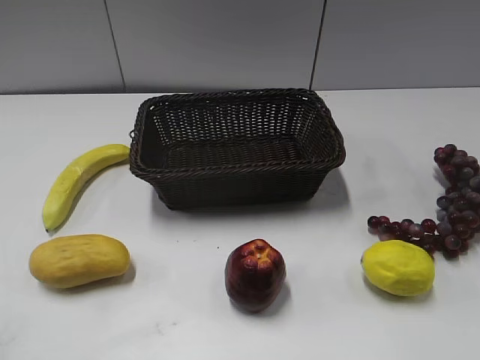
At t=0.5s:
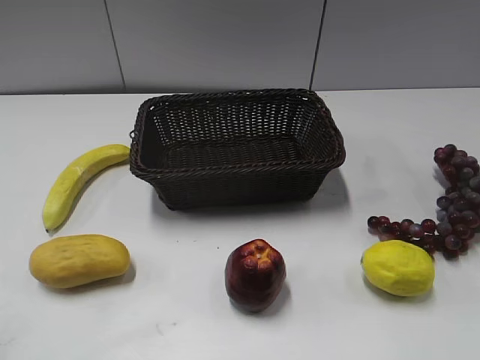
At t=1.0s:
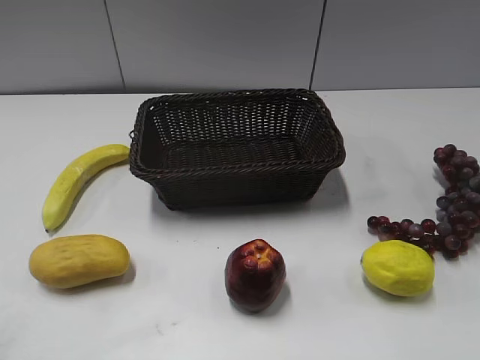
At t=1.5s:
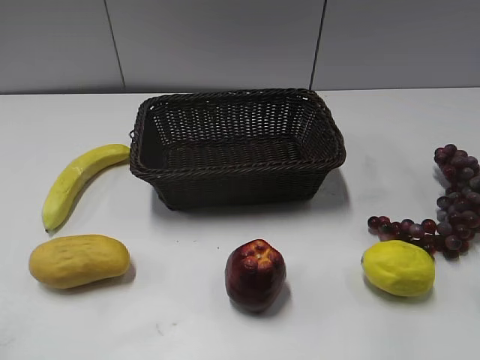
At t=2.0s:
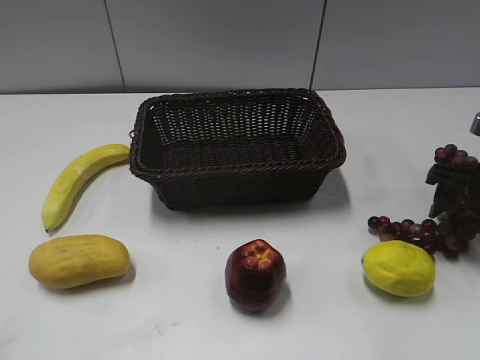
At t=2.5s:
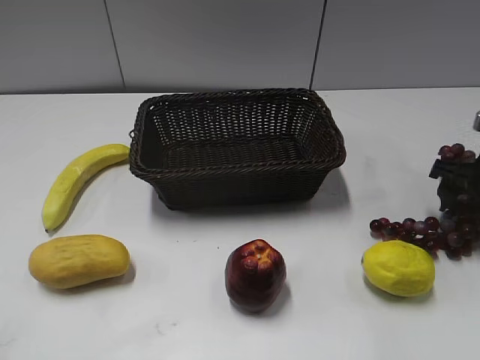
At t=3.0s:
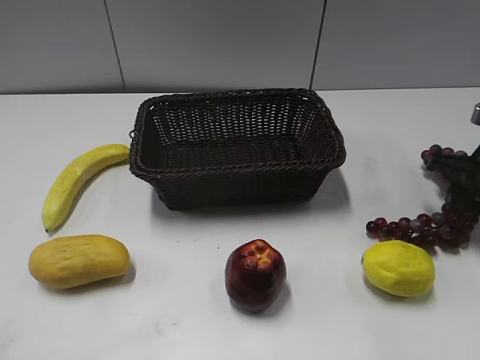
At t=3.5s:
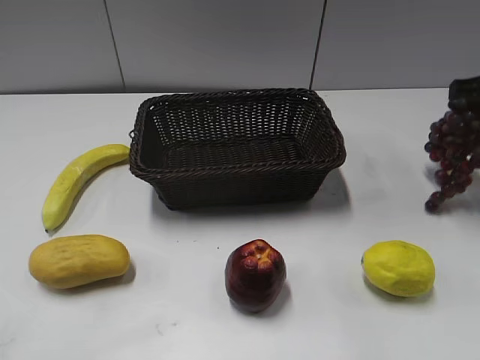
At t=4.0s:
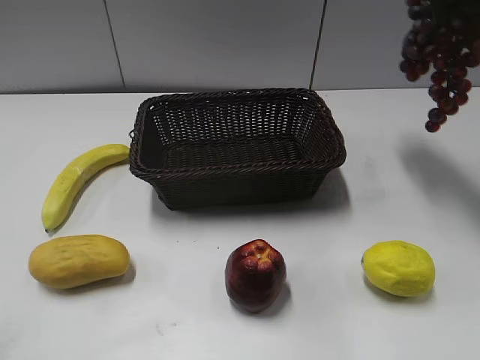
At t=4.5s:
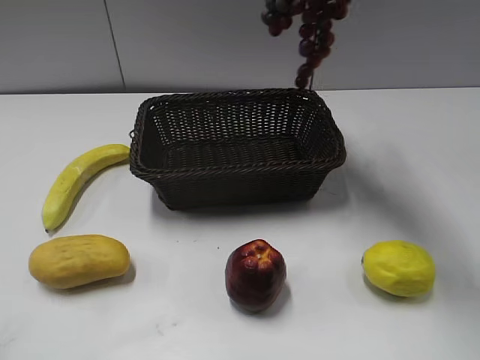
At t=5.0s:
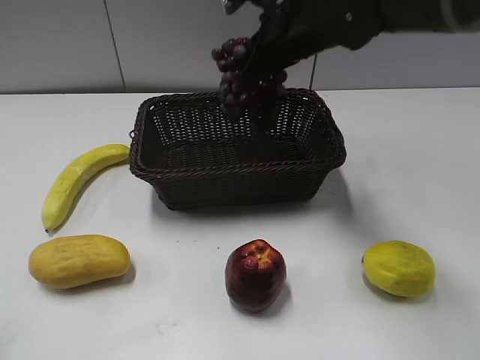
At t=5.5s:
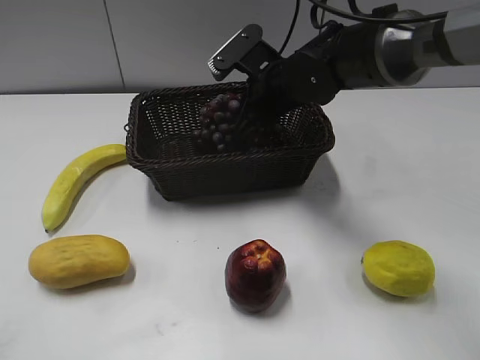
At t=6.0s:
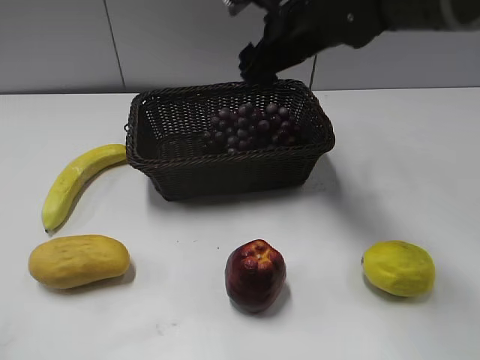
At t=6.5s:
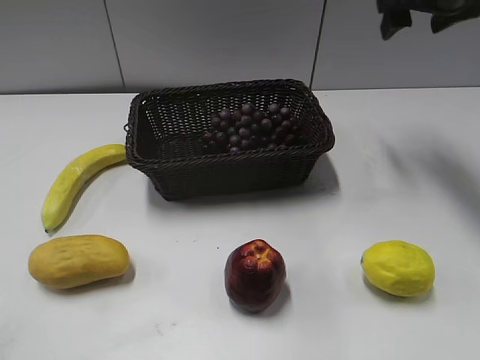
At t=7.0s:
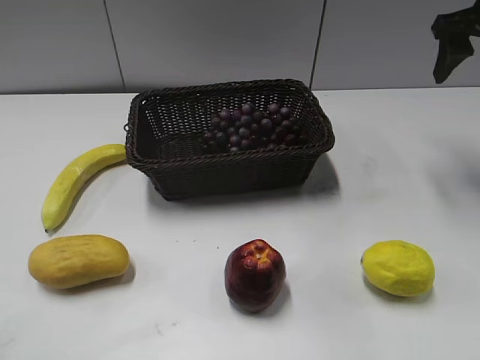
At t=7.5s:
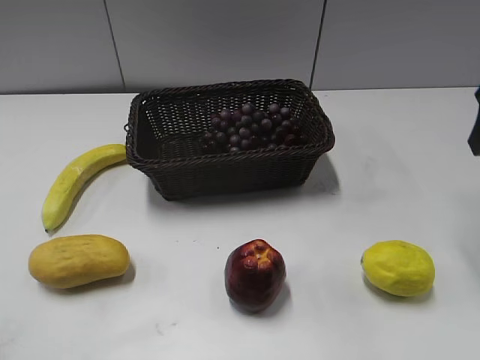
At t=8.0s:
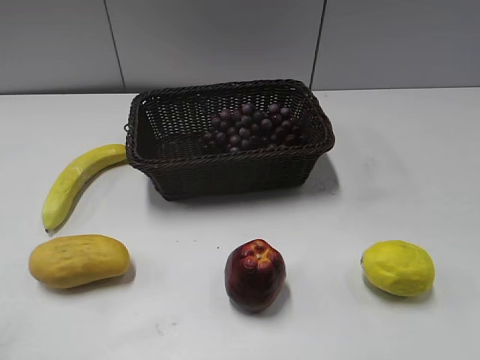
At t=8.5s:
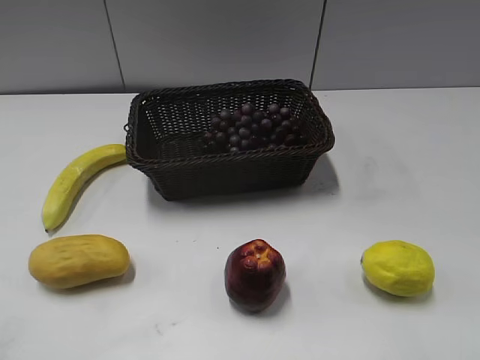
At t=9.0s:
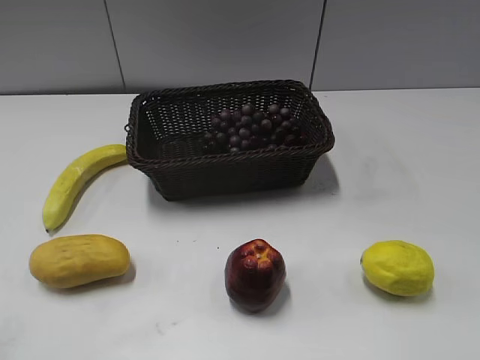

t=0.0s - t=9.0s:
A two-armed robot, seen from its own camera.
Step, t=2.0s - t=2.5s: Grasp the grape with right gripper.
Step, t=3.0s - t=5.5s: Place the grape in the basket with right gripper.
t=2.0s - t=4.5s: The right gripper heads upward and to the left, covering some 30 cm, and closes up.
t=4.5s - t=7.0s: The right gripper is displaced to the right by some 15 cm, and opens its fingers.
t=7.0s - t=9.0s: The right gripper travels backward by roughly 35 cm.

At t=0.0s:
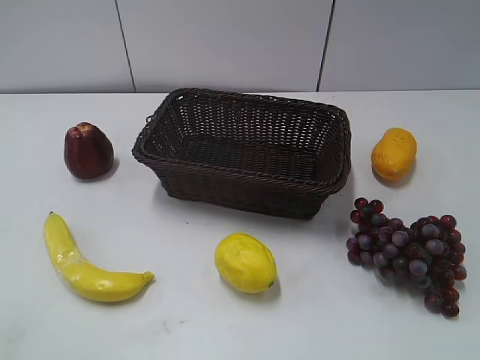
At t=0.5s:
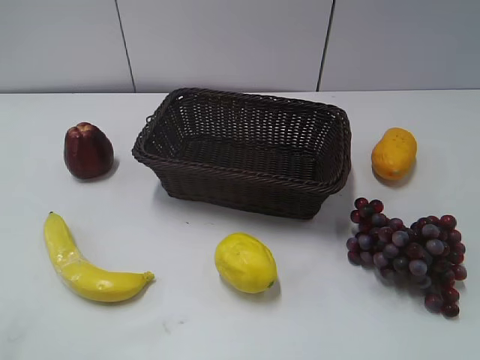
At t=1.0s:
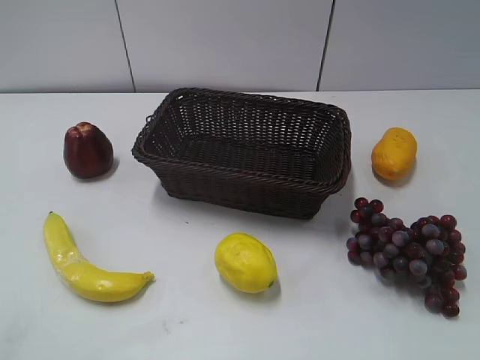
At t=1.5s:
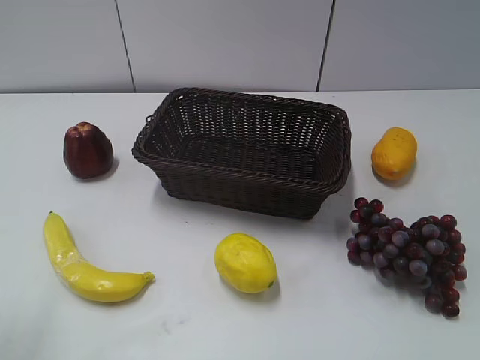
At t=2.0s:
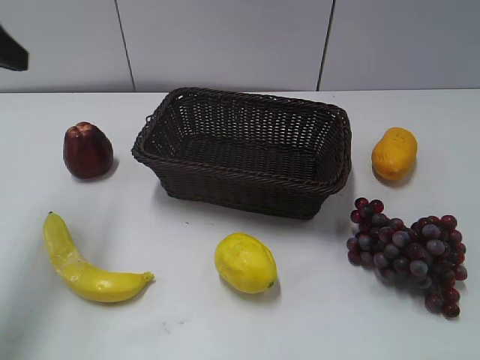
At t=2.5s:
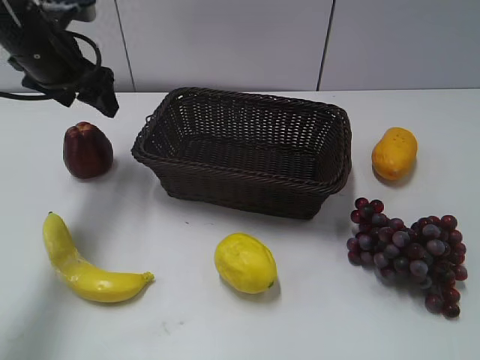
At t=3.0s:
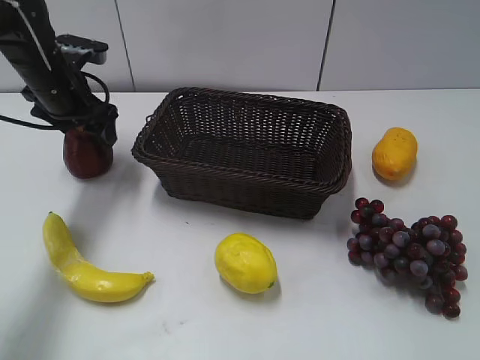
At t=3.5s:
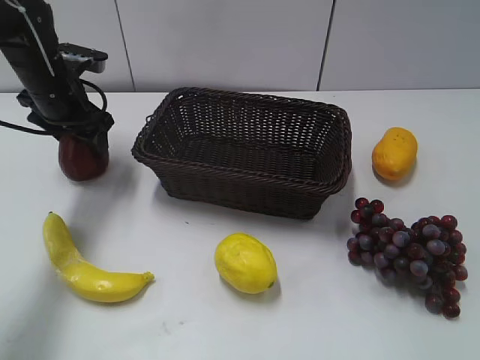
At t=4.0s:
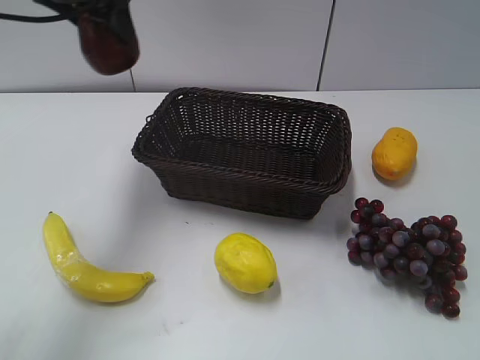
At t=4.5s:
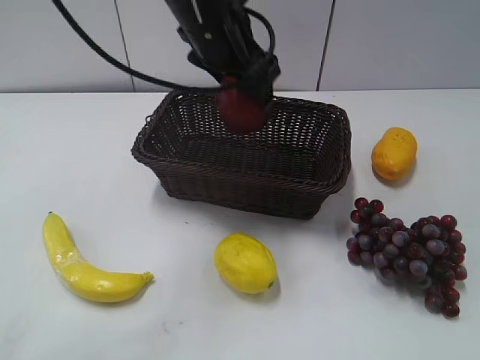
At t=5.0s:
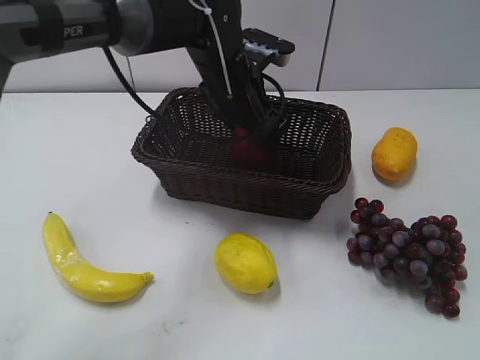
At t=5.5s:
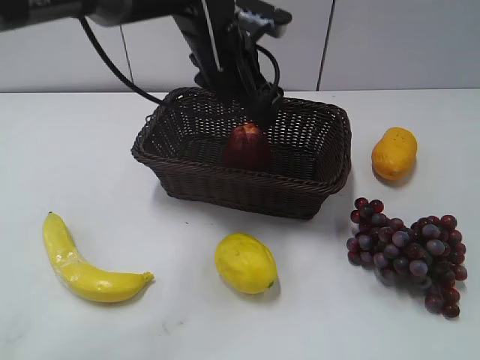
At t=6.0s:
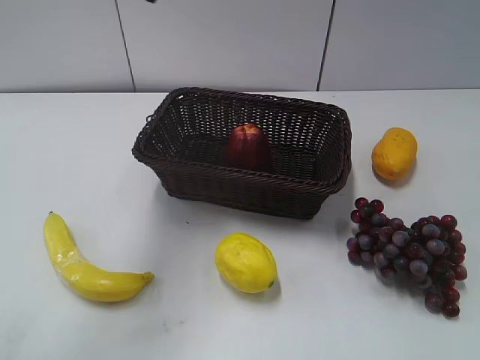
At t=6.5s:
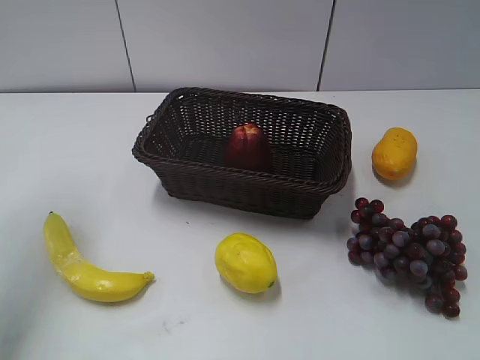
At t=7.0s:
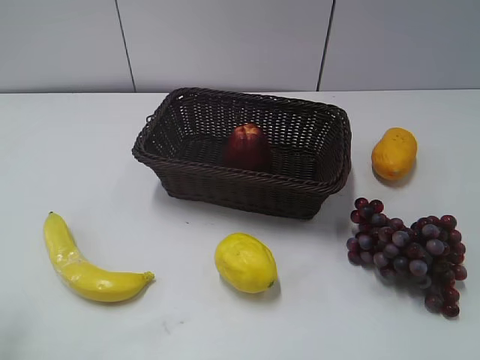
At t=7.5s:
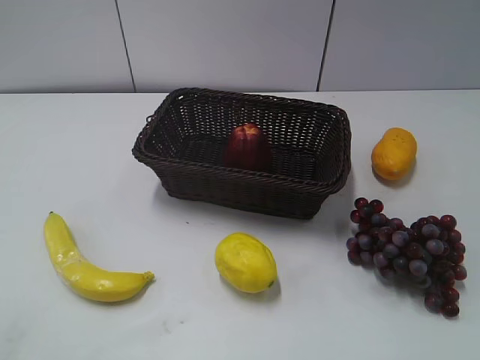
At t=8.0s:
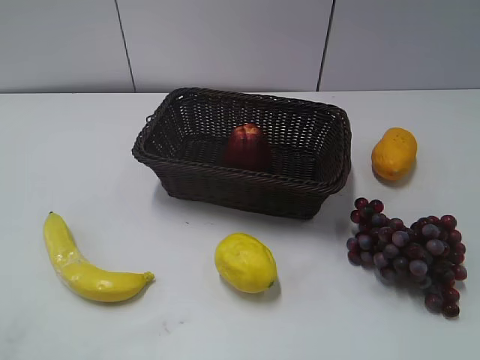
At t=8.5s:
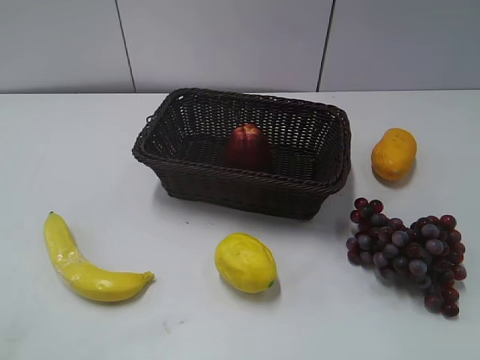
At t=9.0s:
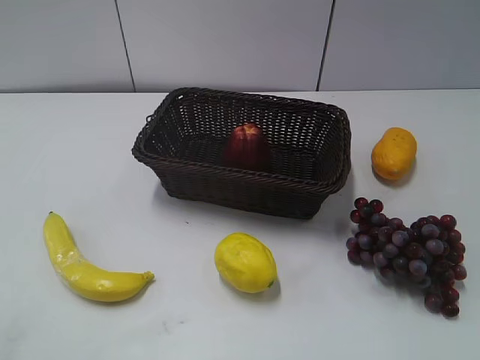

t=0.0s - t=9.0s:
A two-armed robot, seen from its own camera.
Step, t=2.0s - t=3.0s: Grasp the apple with left gripper.
Step, t=3.5s - t=5.0s: Place the apple in the basket with left gripper.
t=2.0s - t=4.5s: The left gripper goes approximately 25 cm to the right, and closes its fingers.
t=4.5s - t=7.0s: The left gripper travels to the left and backward by about 40 cm, and opens, then closes again.

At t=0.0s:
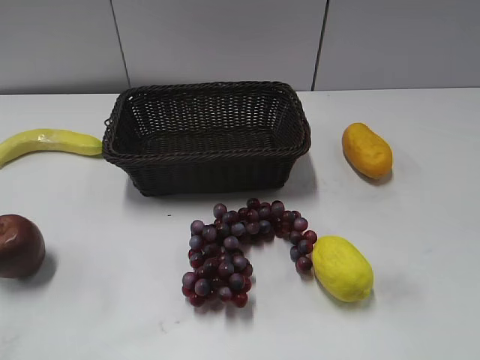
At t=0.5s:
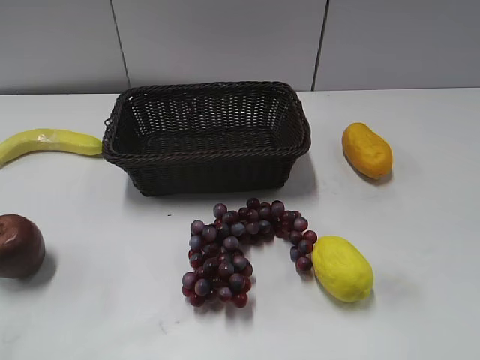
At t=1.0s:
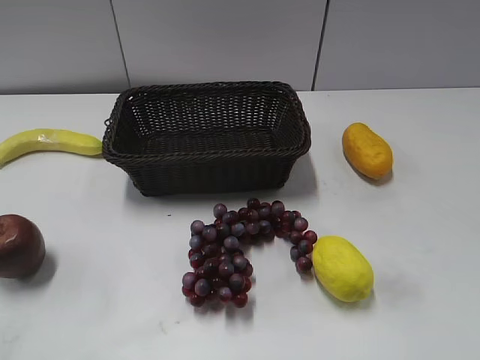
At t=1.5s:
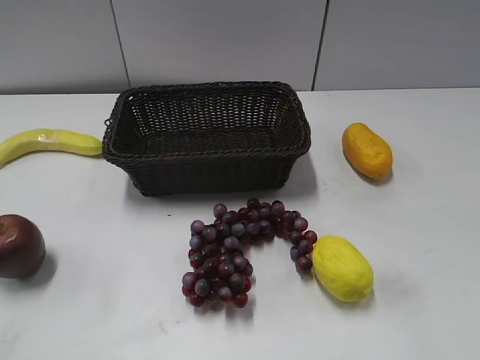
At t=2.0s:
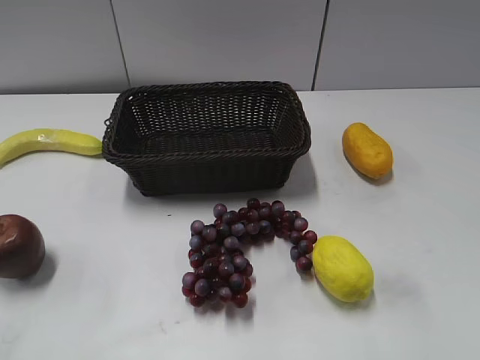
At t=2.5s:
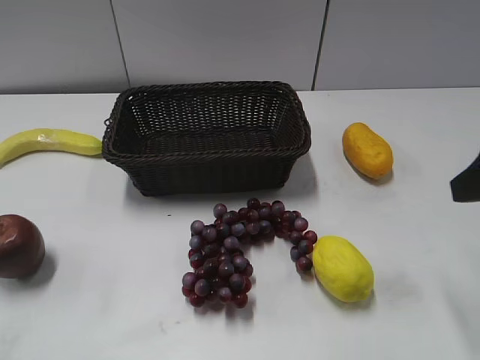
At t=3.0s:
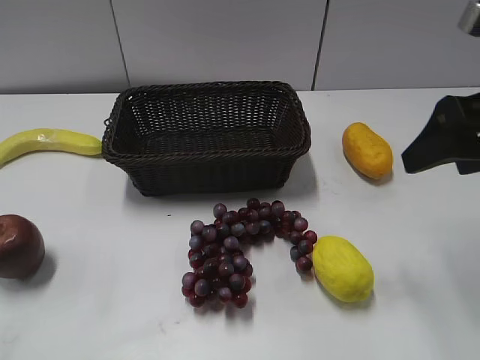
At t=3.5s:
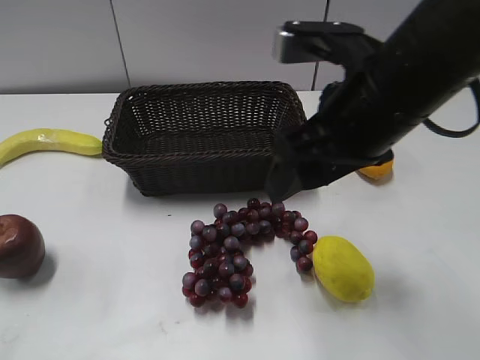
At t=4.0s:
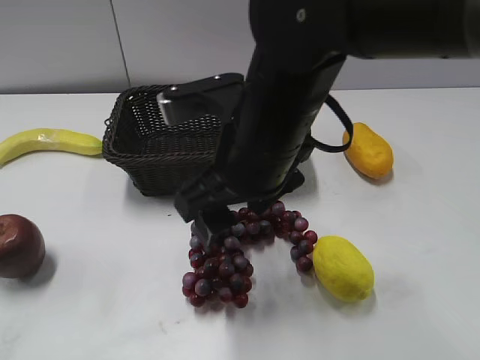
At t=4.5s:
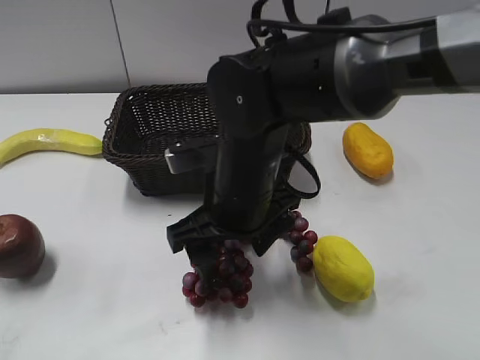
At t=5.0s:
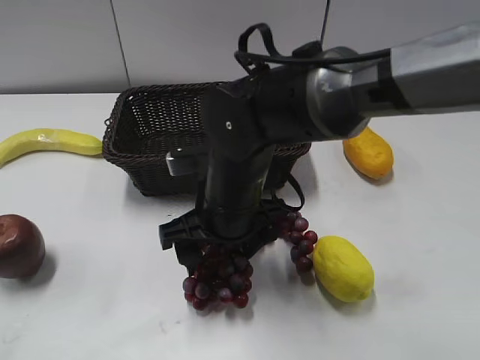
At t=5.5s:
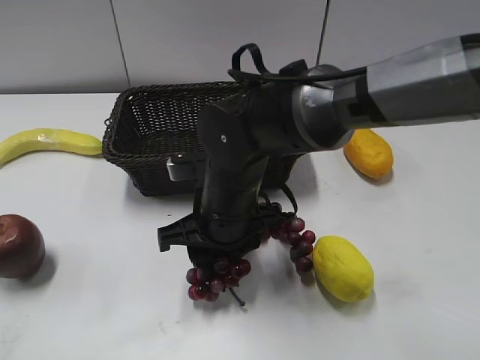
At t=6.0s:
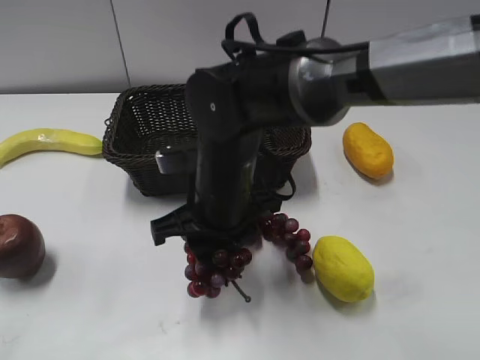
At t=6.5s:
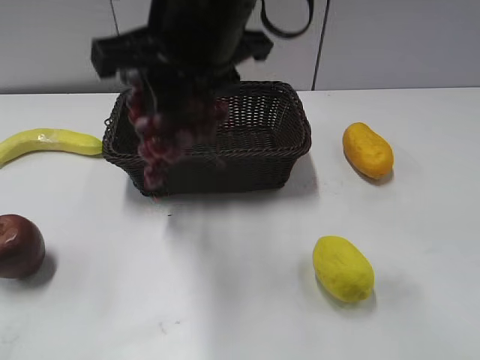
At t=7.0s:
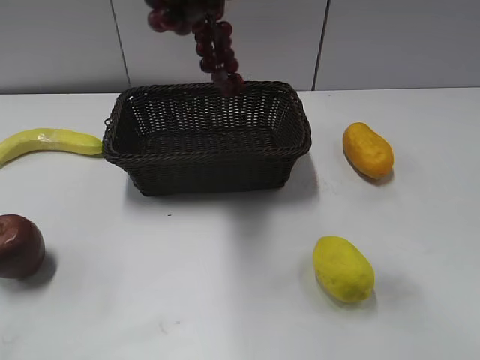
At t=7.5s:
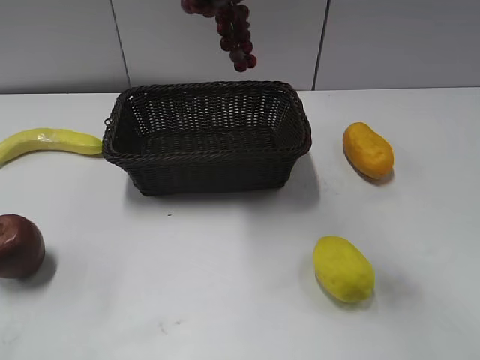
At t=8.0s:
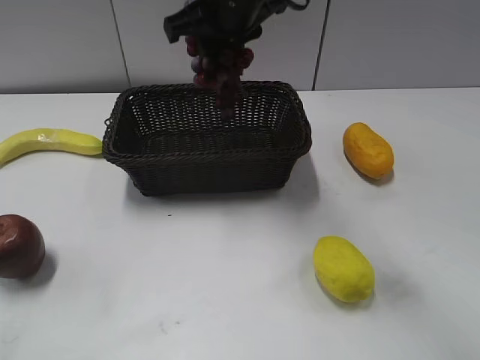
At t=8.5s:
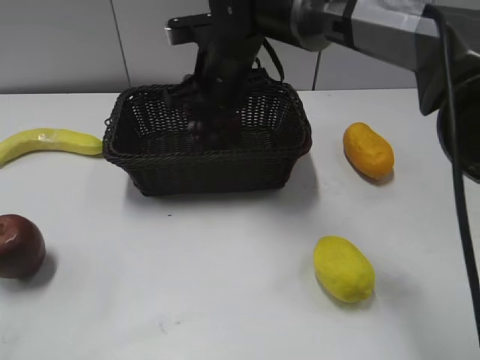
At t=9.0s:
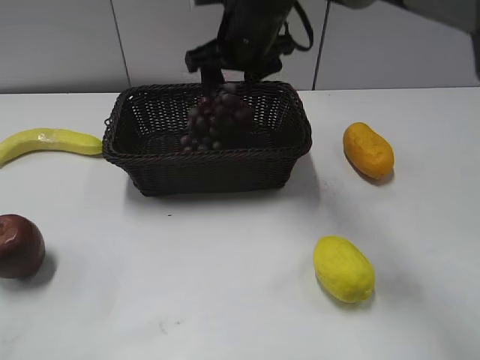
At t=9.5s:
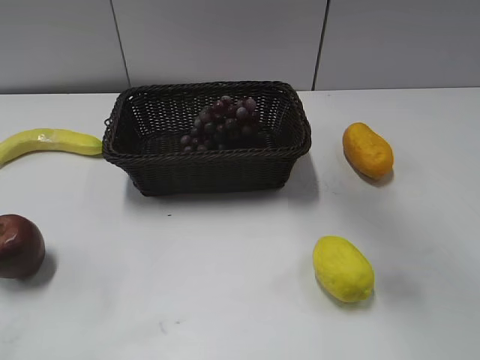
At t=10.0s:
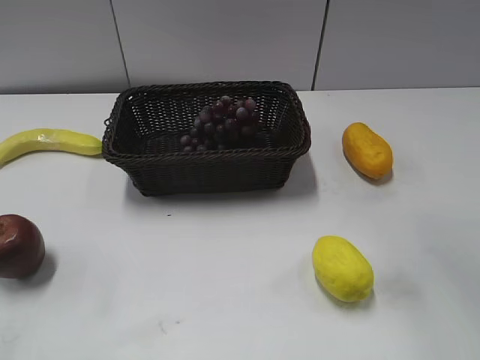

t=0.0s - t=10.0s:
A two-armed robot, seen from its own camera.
Step, t=2.5s - t=6.0s: Grasp the grape with right gripper.
Step, t=6.5s - t=9.0s: Place the grape in the basket with right gripper.
t=2.0s - t=4.0s: The right gripper goes approximately 30 cm to the left.
t=4.0s - t=6.0s: The right gripper heads downward, covering approximately 10 cm, and closes up.
t=6.0s - t=8.0s: The right gripper is displaced upward and forward by about 20 cm.
t=8.0s - t=10.0s: The right gripper moves upward, to the right and backward, approximately 30 cm, and opens up.
